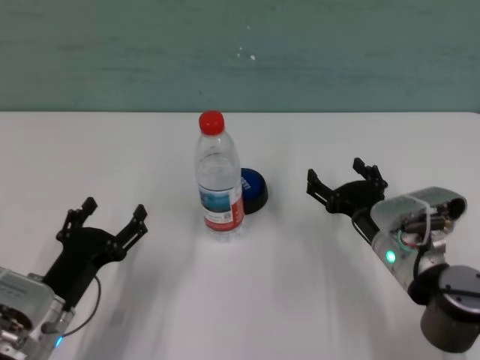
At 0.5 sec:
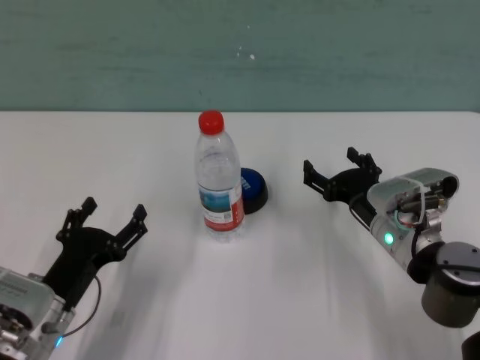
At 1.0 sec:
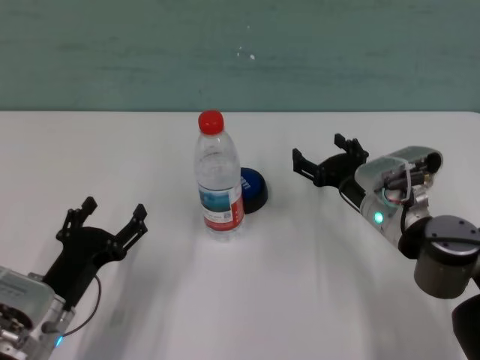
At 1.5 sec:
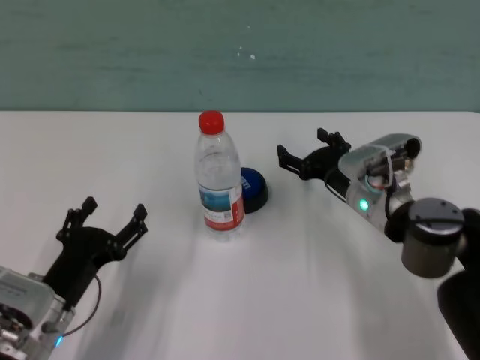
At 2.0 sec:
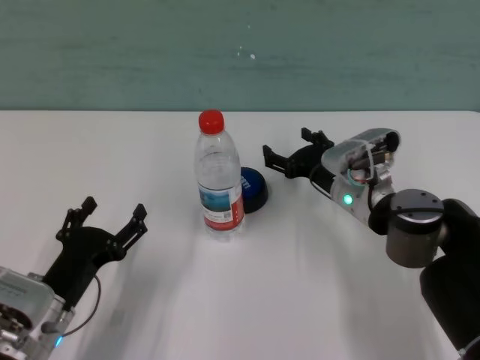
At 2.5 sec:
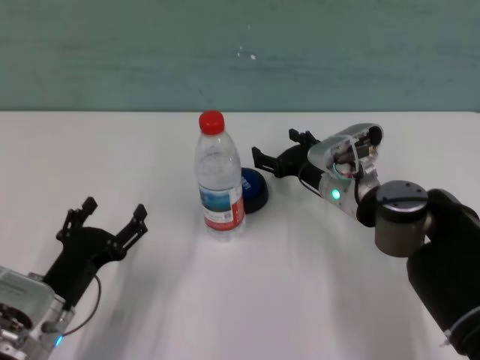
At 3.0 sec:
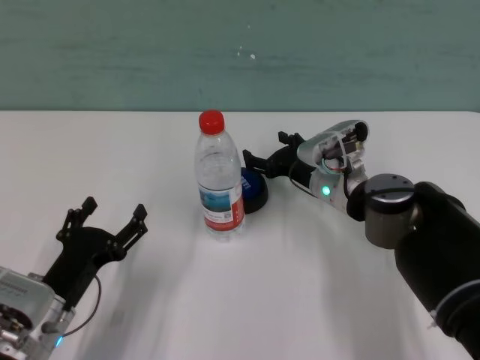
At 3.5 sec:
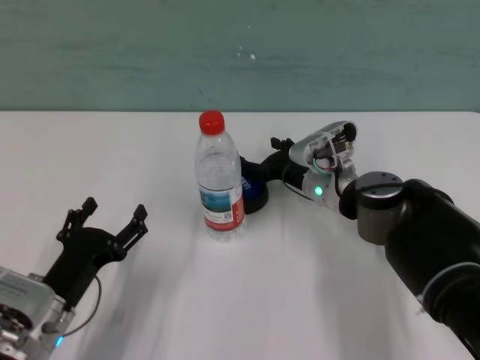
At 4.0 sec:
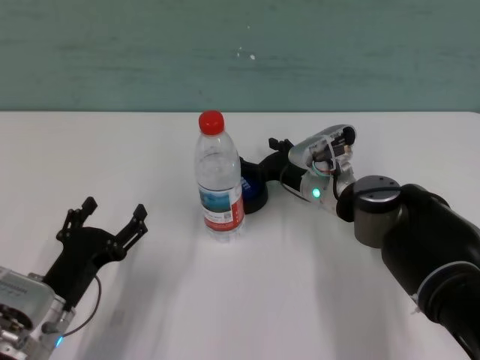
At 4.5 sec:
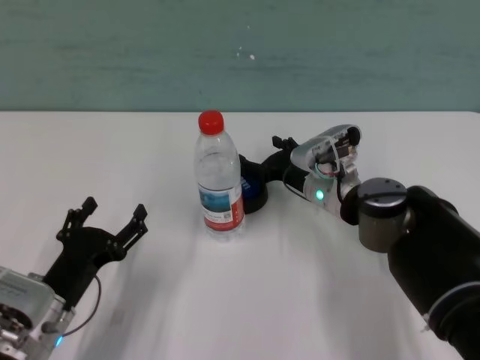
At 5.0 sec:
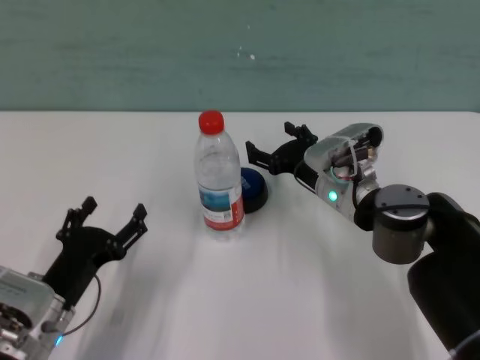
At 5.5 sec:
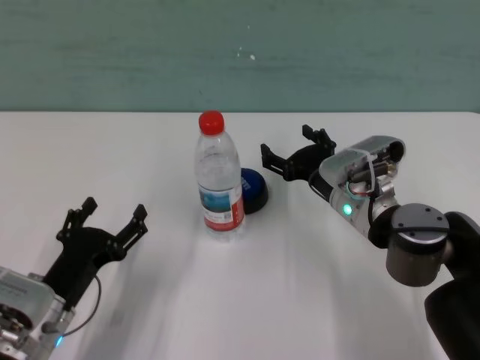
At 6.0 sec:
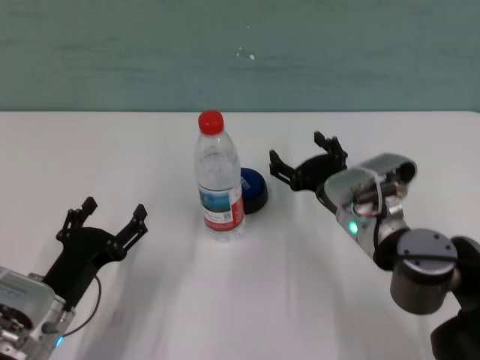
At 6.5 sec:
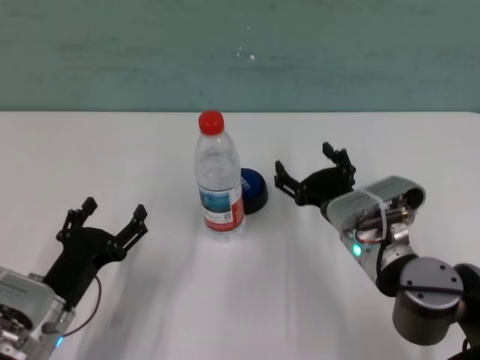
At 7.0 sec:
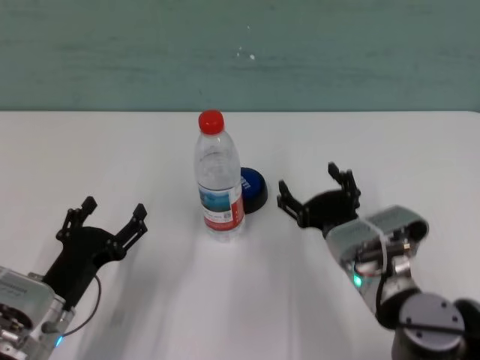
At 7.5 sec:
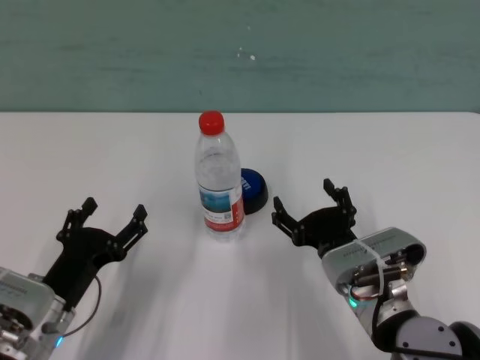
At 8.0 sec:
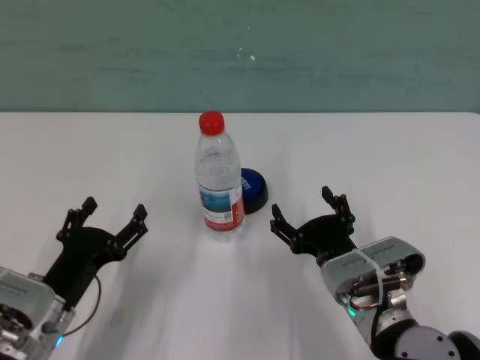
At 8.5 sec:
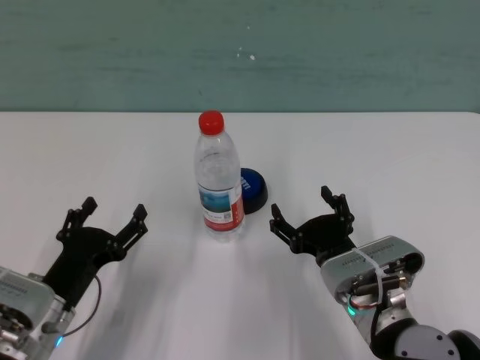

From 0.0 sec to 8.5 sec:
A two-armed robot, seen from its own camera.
Task of the whole recording: after avoiding the water bottle on the table, press the button.
Step, from 0.0 sec to 4.0 sec: Press the button blocked by the bottle with right gripper.
